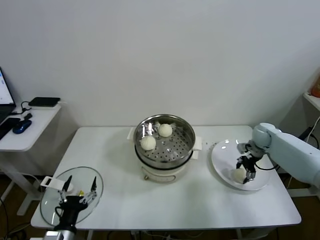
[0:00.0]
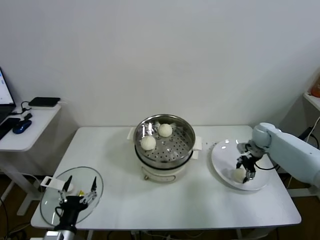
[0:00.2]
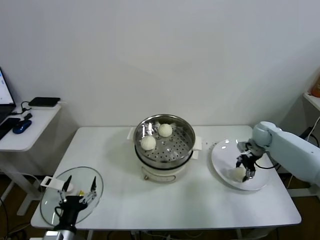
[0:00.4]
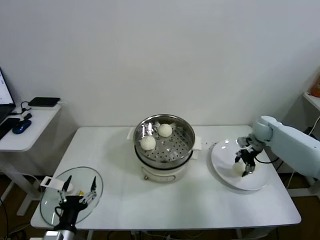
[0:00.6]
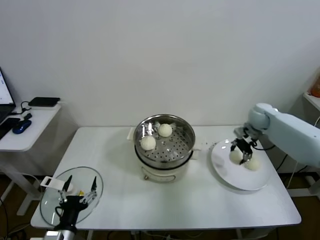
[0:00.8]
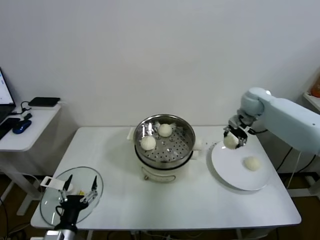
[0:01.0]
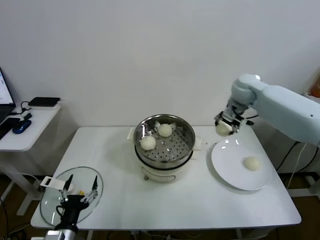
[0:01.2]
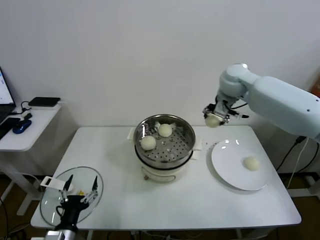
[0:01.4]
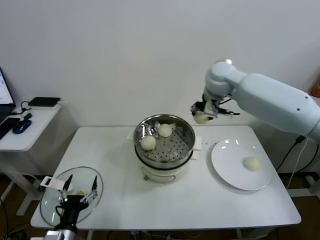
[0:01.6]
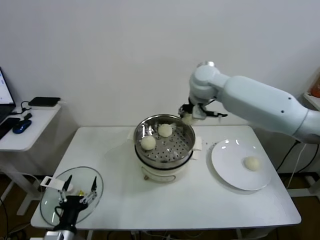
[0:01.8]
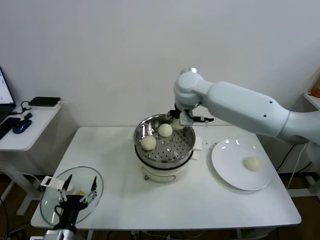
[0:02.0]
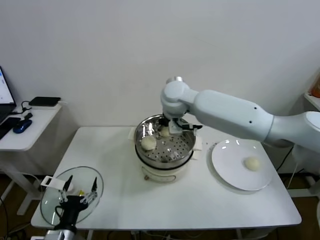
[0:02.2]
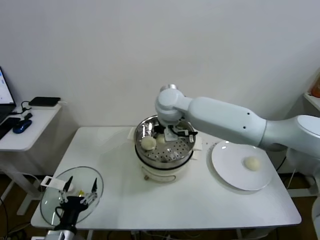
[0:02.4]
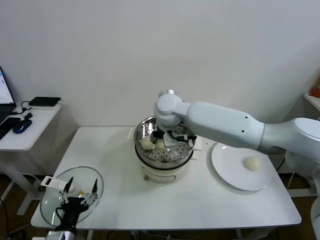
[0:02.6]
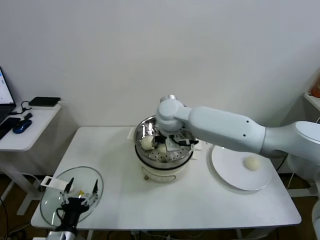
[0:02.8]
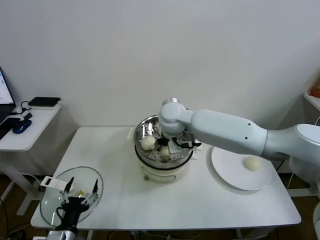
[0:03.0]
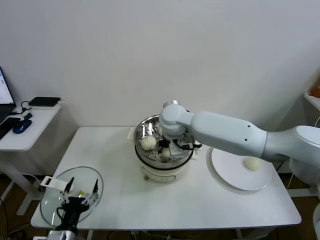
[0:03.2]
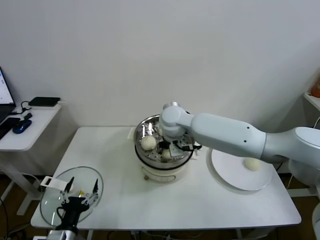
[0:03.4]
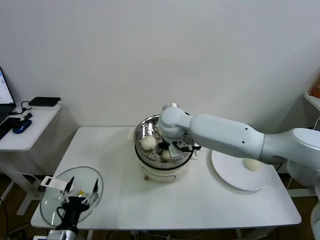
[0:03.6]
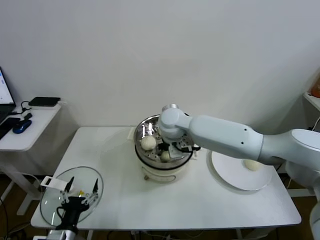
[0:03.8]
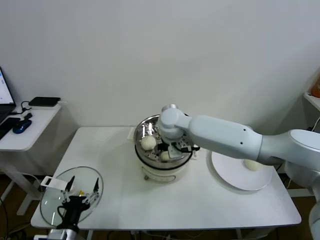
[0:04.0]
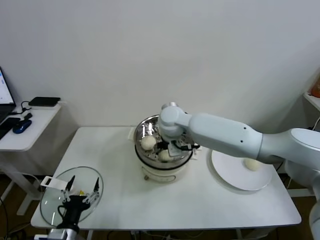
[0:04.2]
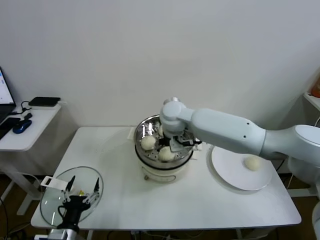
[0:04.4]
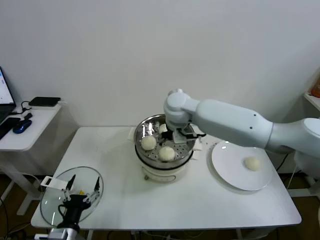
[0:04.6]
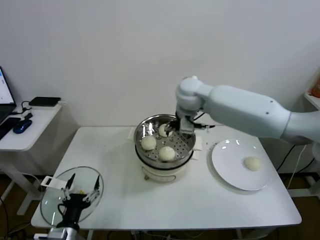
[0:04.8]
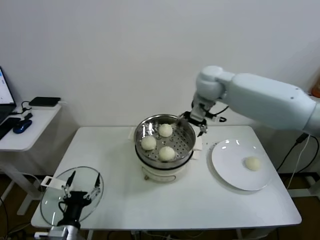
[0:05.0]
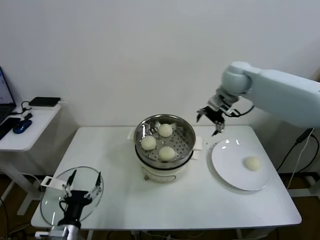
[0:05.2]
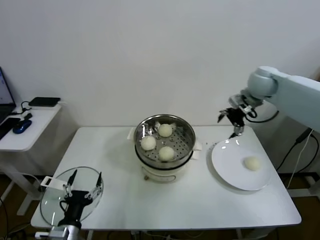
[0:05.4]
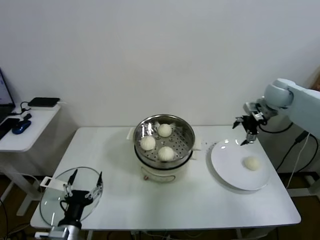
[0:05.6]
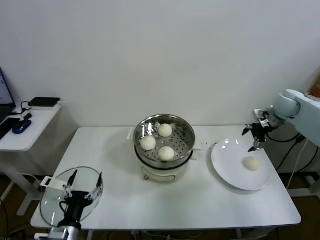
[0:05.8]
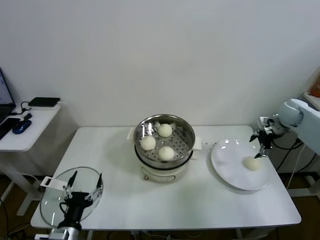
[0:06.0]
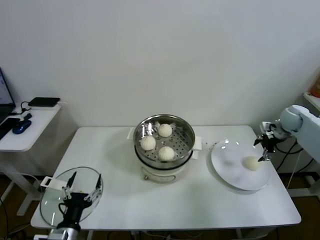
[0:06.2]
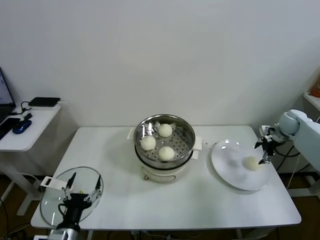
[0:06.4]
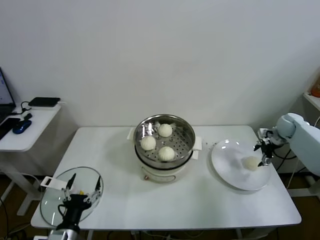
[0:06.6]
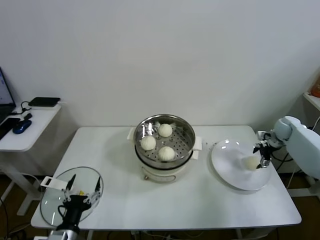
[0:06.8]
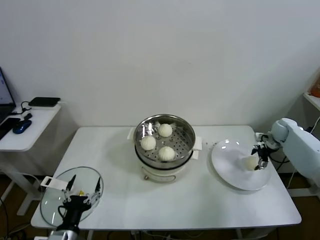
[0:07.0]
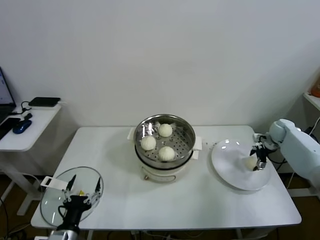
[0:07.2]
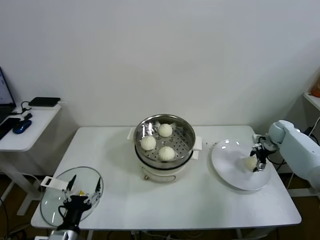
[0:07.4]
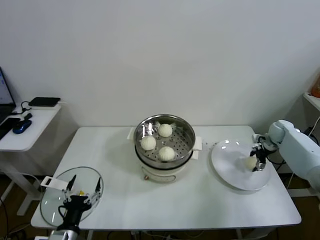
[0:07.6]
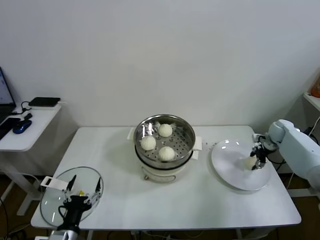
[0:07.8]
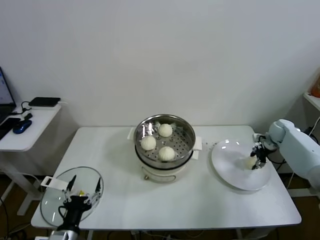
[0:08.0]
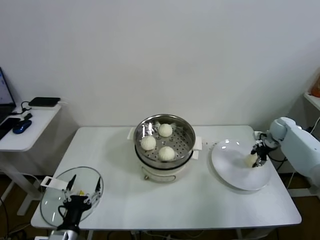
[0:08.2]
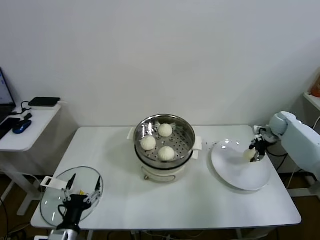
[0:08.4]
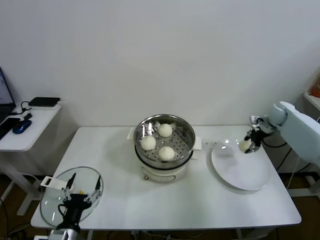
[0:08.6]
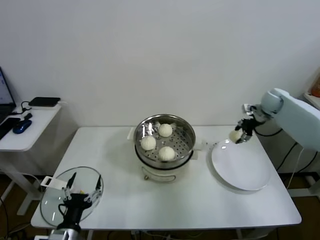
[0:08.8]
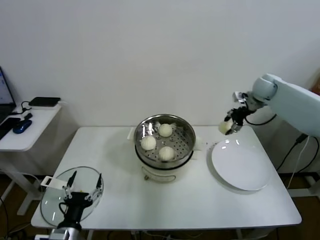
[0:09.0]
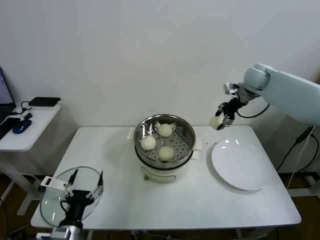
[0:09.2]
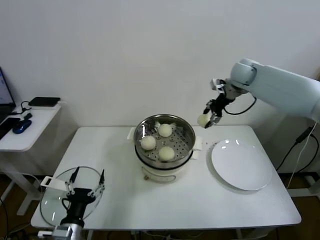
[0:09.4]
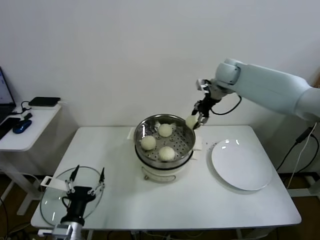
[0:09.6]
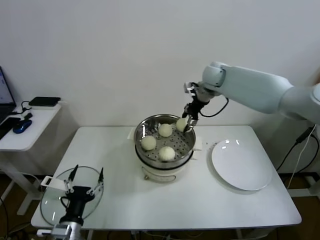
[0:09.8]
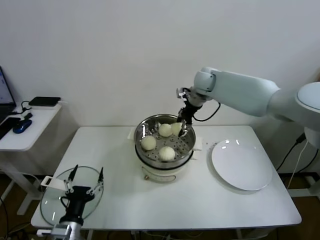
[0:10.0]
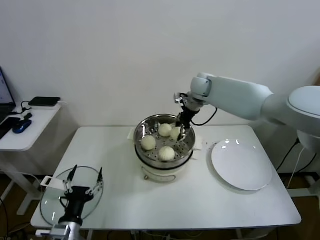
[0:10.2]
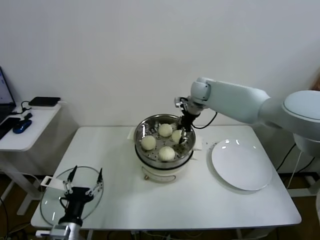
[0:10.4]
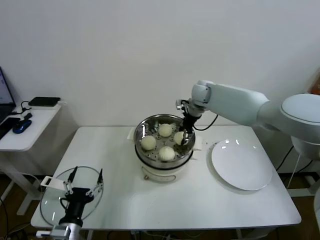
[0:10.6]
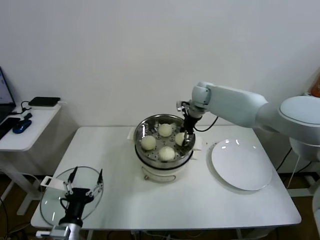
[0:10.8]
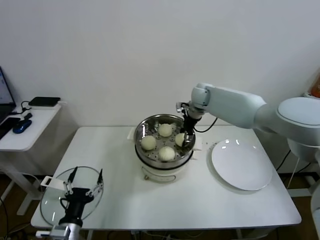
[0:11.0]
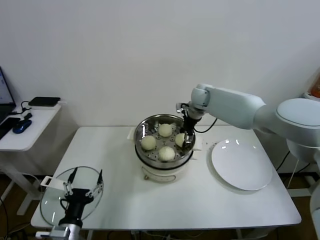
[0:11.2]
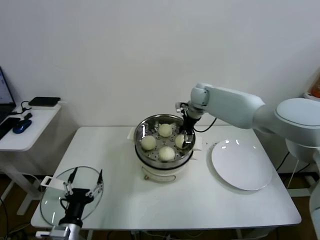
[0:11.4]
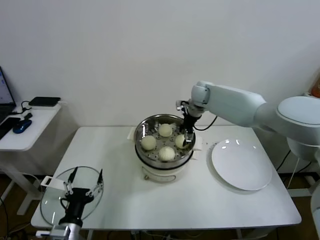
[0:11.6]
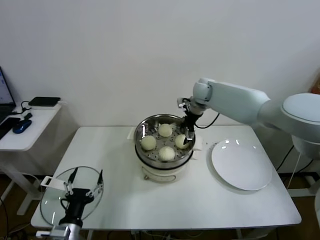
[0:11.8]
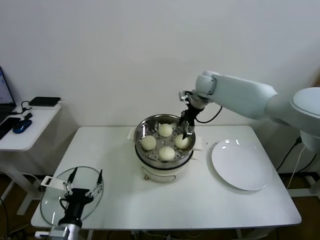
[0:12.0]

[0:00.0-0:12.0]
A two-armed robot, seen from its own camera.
Task of the whole recording: take steamed baozi put them in steamer.
Step, 0:00.4 to 0:04.0: Place the baozi on the steamer with right gripper.
Step, 0:04.2 to 0:08.0: Grasp the baozi in the plate with right gripper.
Step, 0:08.2 to 0:11.4: Place the baozi on the steamer with right gripper.
0:00.0 to 0:01.6: The right gripper is displaced upward and to the left by about 35 cm.
0:01.6 to 0:03.0: The right gripper travels to the left, downward and backward by about 20 cm.
0:03.0 to 0:04.4: The right gripper opens.
0:04.4 to 0:06.0: The right gripper shifts approximately 40 cm to the right.
0:06.0 to 0:07.6: The right gripper is displaced downward by about 15 cm.
0:07.6 to 0:09.0: The right gripper goes approximately 20 cm upward and to the left, and closes up.
0:09.0 to 0:10.4: The right gripper moves to the left, approximately 25 cm.
0:10.4 to 0:12.0: The right gripper opens its fingers.

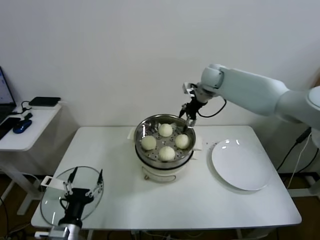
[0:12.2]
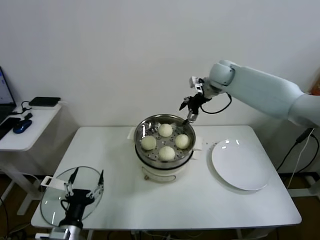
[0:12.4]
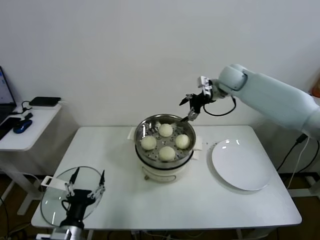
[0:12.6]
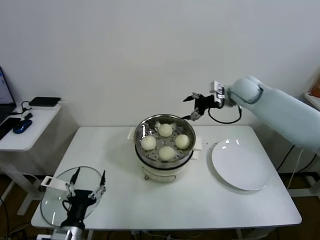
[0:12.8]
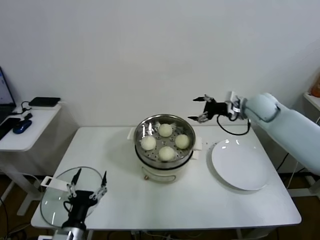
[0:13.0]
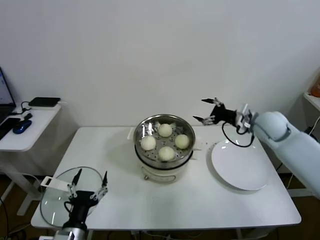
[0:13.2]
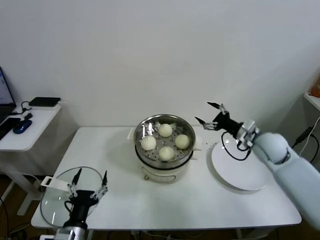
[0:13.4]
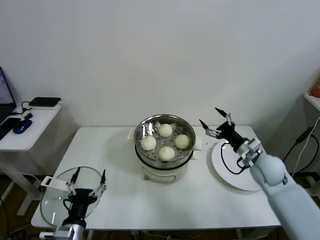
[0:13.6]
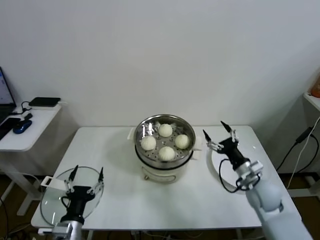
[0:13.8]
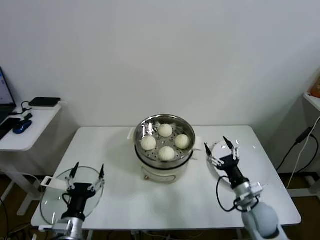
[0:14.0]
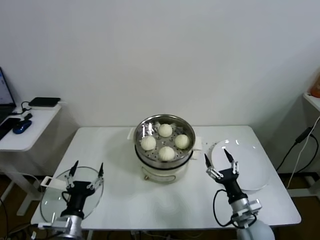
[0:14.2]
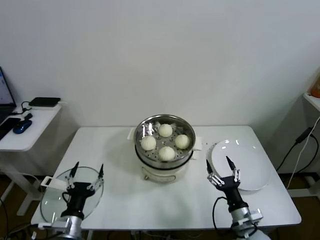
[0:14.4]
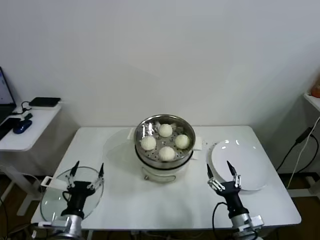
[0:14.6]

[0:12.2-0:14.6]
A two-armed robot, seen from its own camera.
Task of the whole recording: take steamed baozi put them in steamer.
0:12.2 to 0:13.4: The right gripper shifts about 30 cm backward, to the right and downward.
0:13.4 to 0:14.6: The right gripper heads backward and downward, covering some 35 cm.

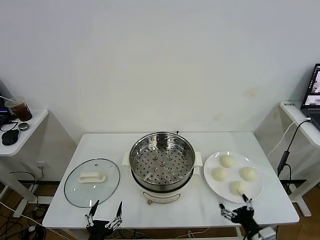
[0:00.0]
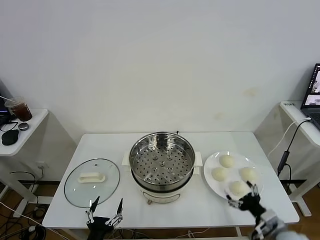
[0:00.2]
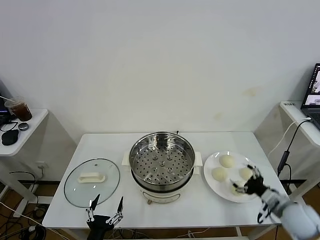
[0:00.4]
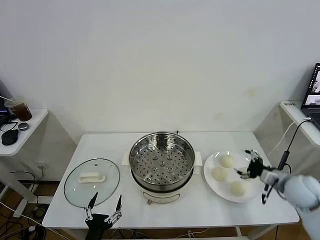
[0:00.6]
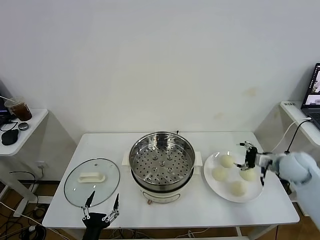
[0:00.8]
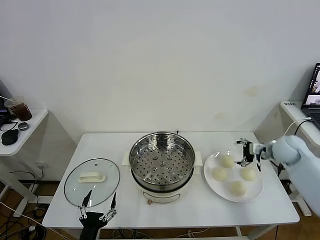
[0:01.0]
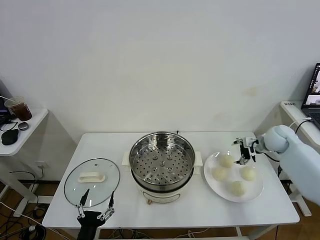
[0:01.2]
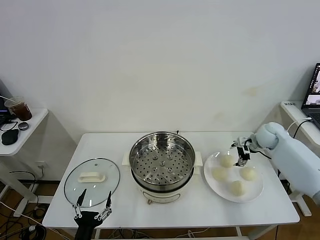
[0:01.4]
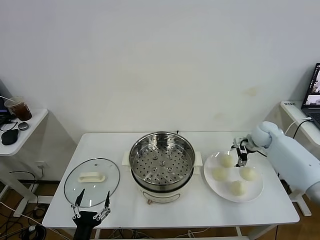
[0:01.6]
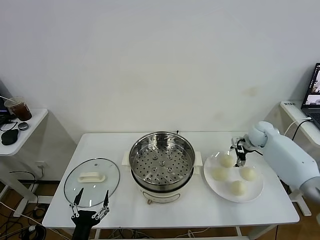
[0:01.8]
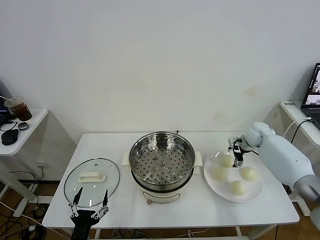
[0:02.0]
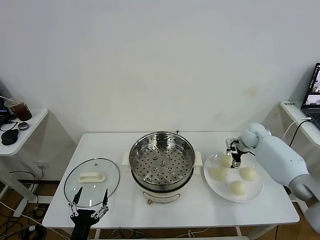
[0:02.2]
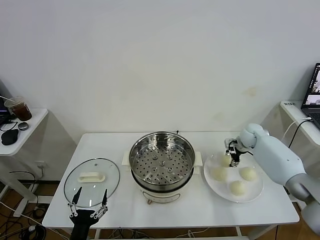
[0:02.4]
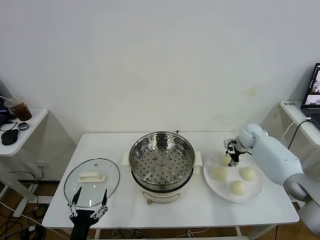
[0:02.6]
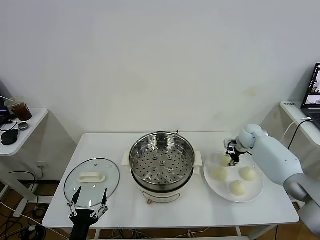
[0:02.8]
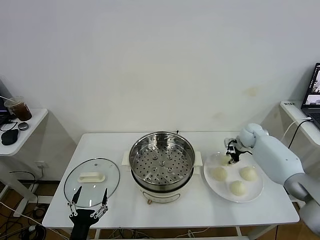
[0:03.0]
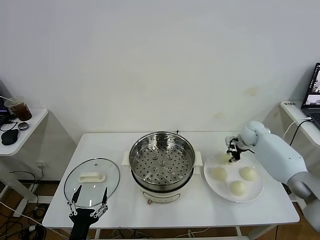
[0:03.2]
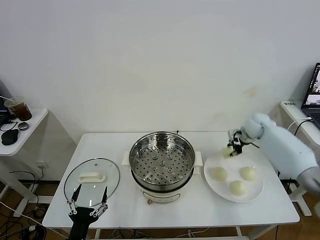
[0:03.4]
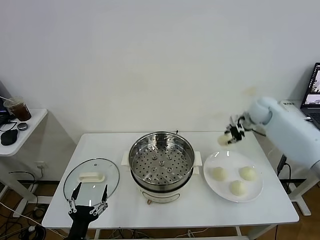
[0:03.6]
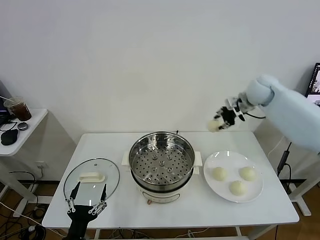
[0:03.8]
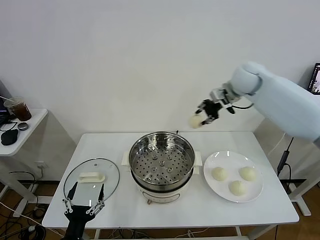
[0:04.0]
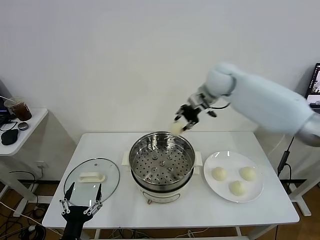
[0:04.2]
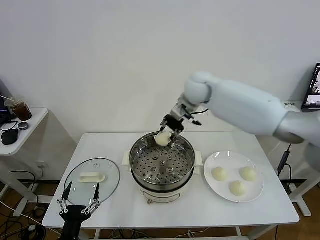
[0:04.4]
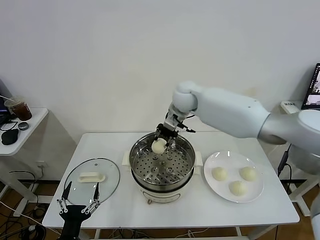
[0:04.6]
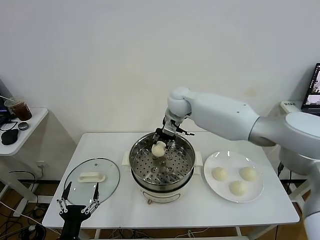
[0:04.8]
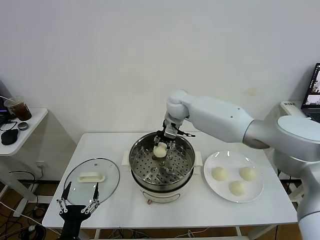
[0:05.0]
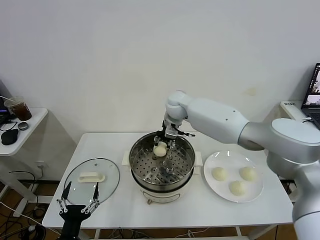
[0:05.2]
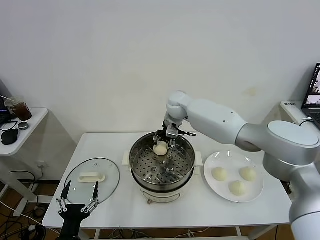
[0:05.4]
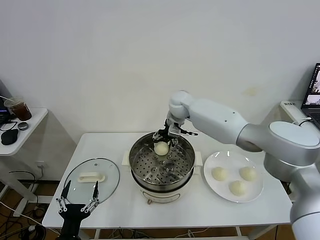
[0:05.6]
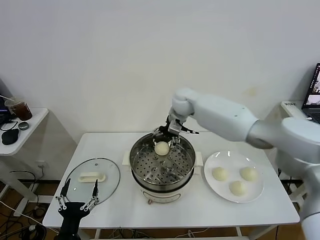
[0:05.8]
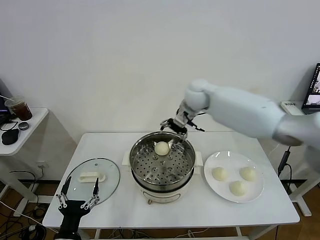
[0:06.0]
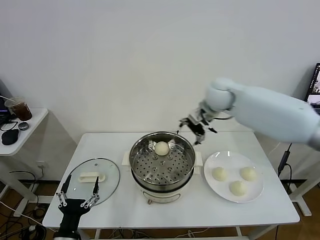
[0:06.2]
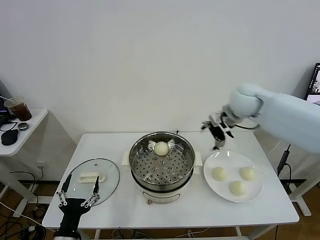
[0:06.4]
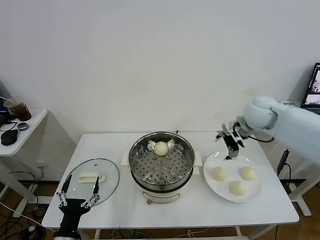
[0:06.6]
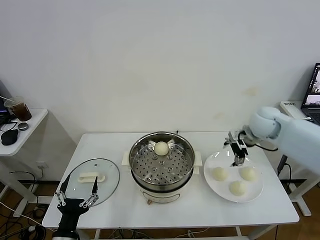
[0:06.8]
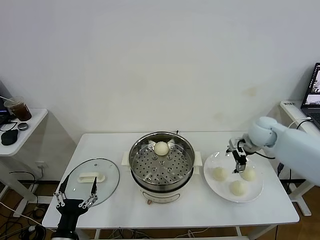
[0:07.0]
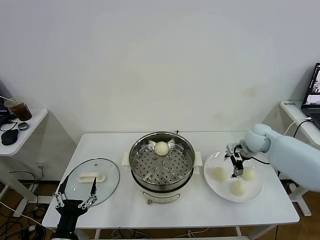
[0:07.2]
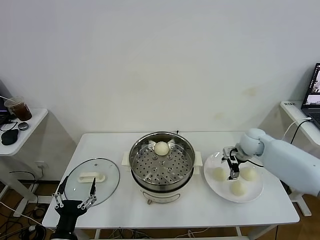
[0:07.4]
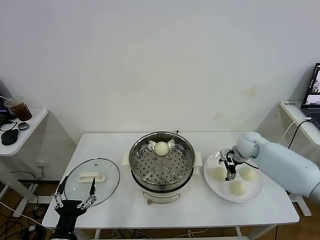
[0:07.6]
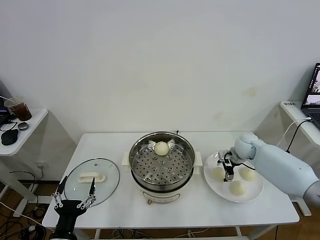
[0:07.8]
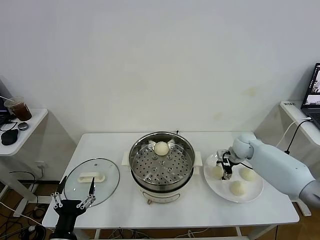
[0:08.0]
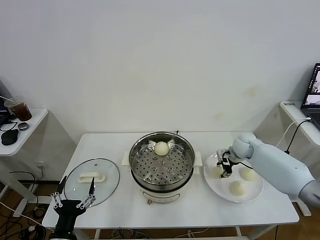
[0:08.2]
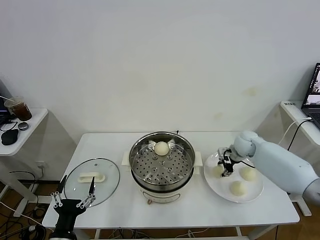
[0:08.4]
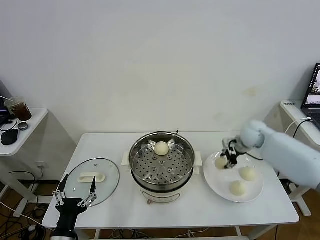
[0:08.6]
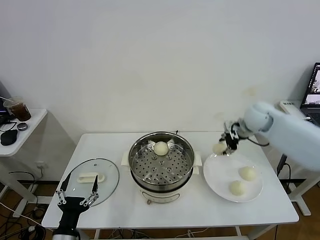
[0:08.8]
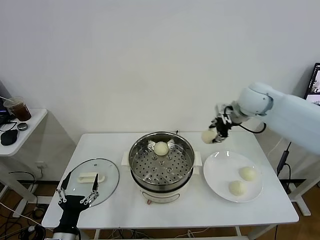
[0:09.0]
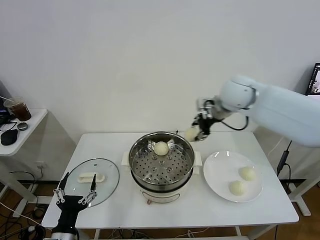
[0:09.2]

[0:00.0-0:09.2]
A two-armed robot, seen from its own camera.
Task of the whole recording: take steamed baozi put them in steamer.
Step, 0:00.0 to 0:02.6: Grasp the baozi in the plate with right gripper.
Step, 0:02.8 to 0:05.8: Place the baozi on the steamer with right gripper.
Step, 0:06.0 to 0:08.2: Grasp the baozi in the plate with right gripper.
0:01.6 to 0:03.0: The right gripper closes its fingers.
0:03.0 to 0:04.6: The right gripper travels to the left and upward by approximately 35 cm.
0:04.6 to 0:06.2: The right gripper goes roughly 20 cm to the right, and opens its fingers.
0:06.2 to 0:07.6: The right gripper goes approximately 25 cm downward and to the right.
0:07.6 to 0:09.2: The right gripper is displaced upward and to the left by roughly 30 cm, and closes its fingers.
